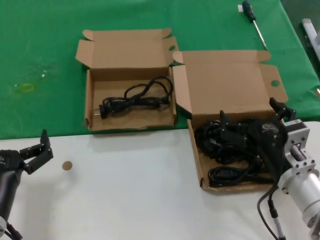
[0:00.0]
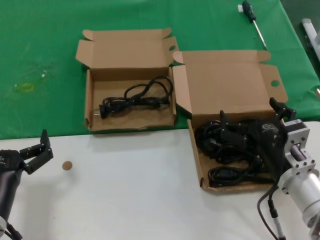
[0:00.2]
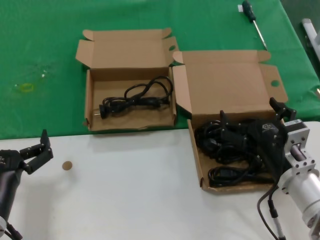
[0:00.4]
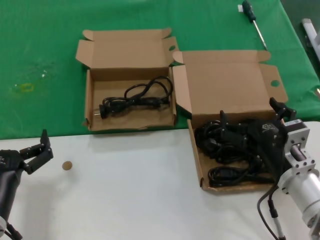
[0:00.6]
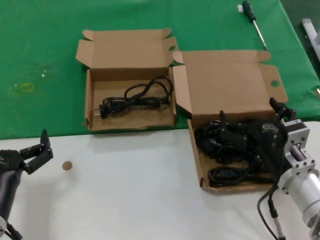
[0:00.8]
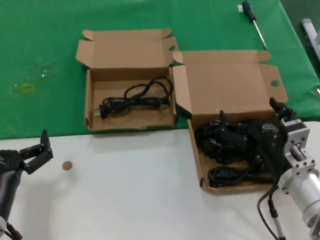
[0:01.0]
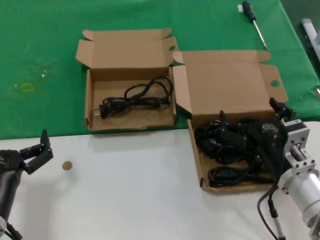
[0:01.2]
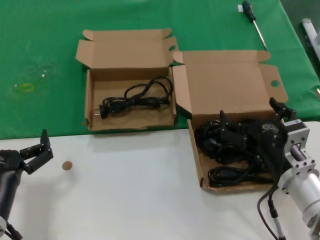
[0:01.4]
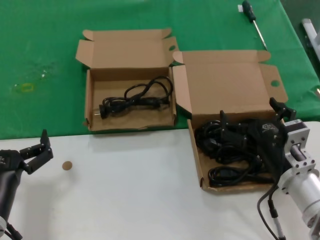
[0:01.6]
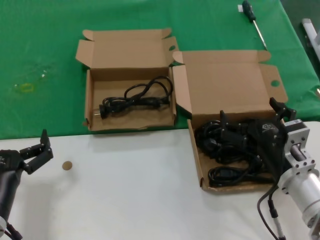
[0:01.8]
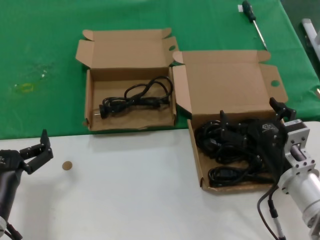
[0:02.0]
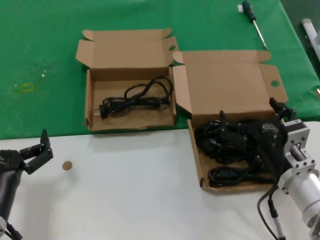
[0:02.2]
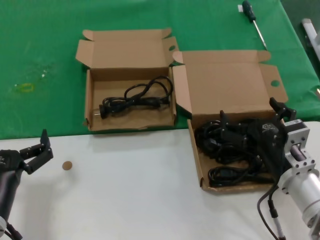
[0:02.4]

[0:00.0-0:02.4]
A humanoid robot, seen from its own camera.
Task of the whole recording: take the parts from the box containing them and put them into an empty box.
0:00.0 to 0:02.4: Both hands stay about where they are.
